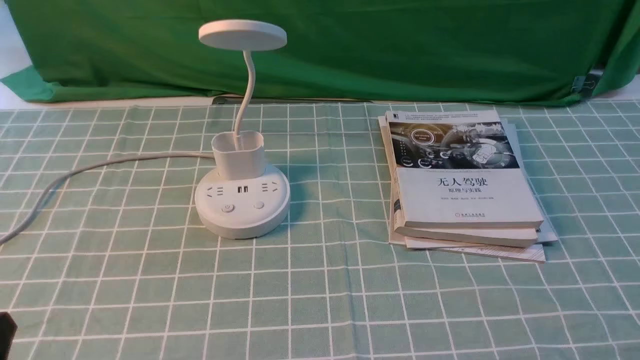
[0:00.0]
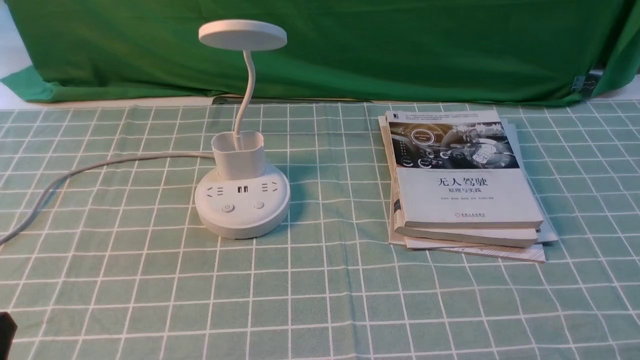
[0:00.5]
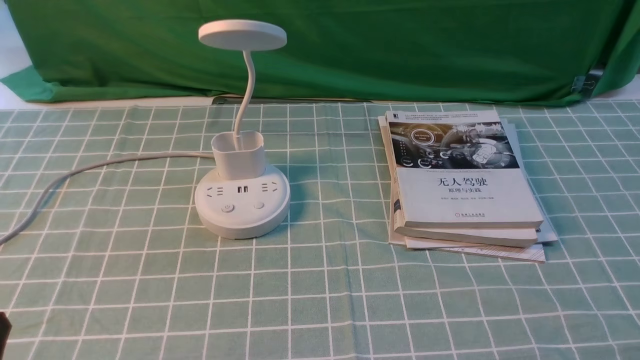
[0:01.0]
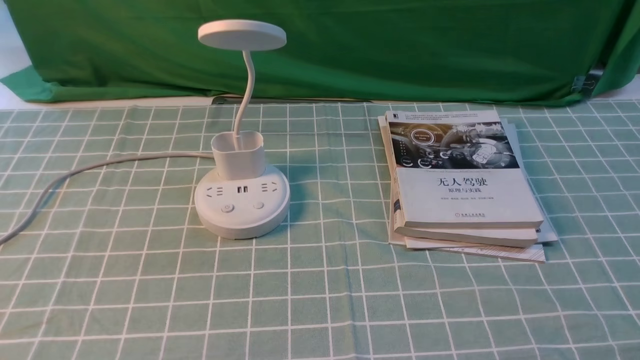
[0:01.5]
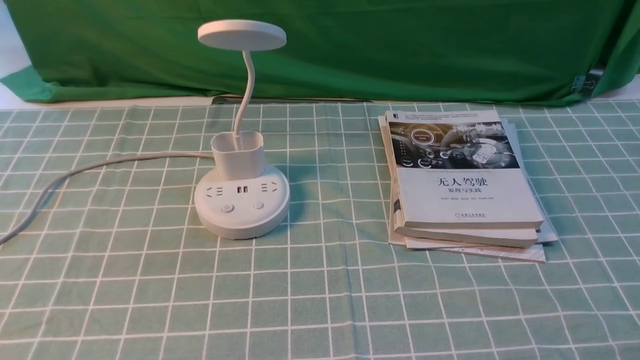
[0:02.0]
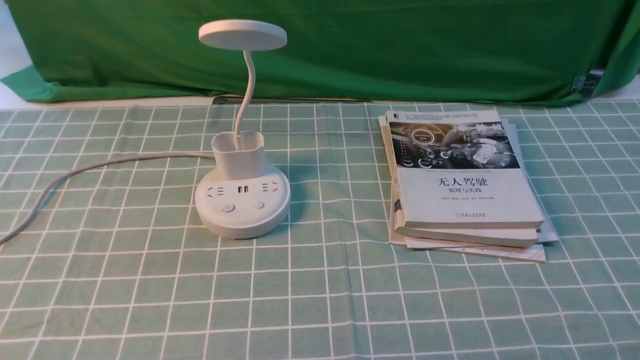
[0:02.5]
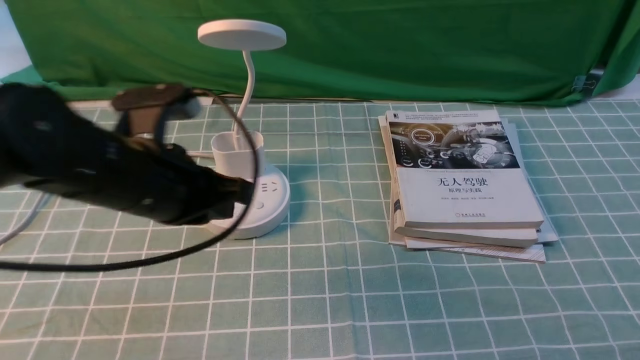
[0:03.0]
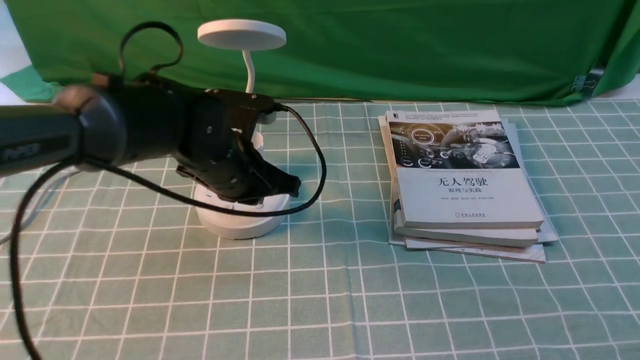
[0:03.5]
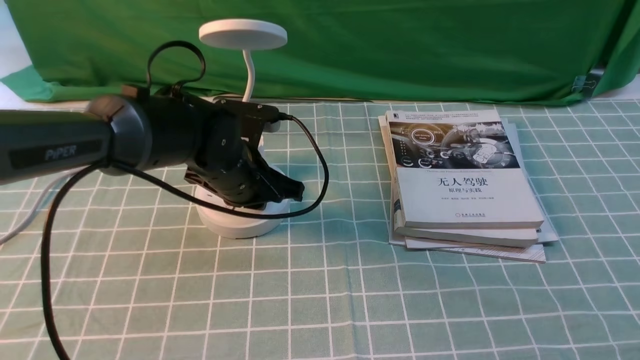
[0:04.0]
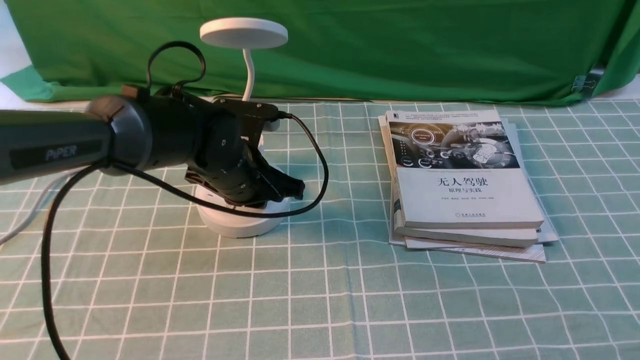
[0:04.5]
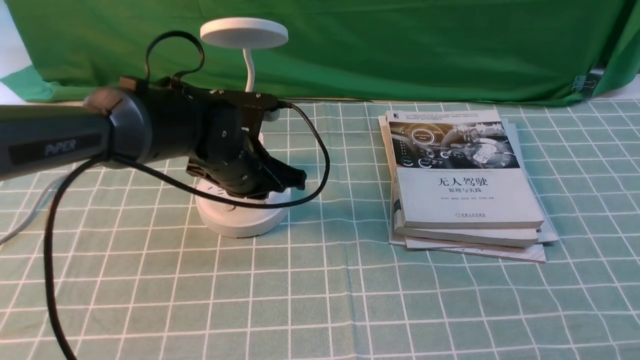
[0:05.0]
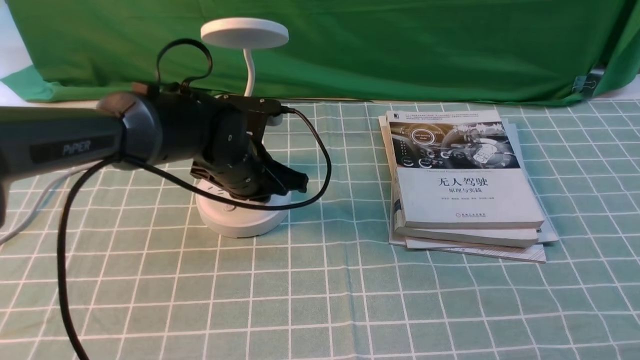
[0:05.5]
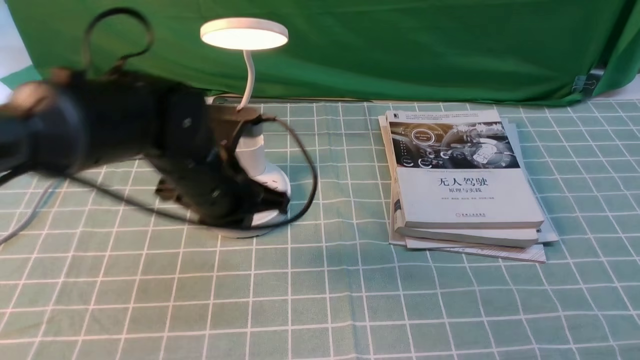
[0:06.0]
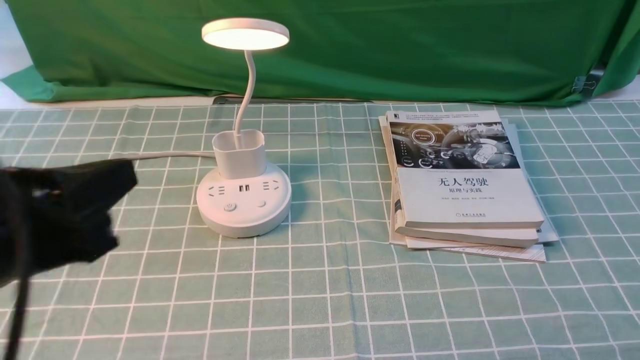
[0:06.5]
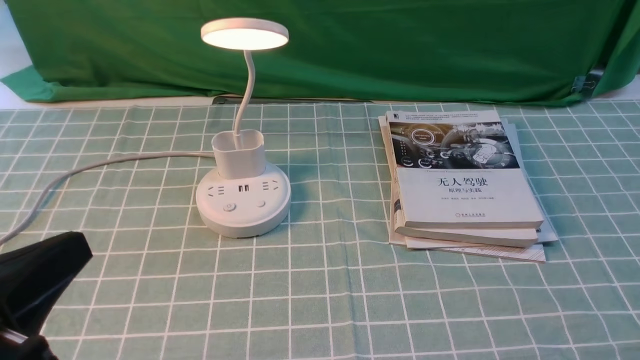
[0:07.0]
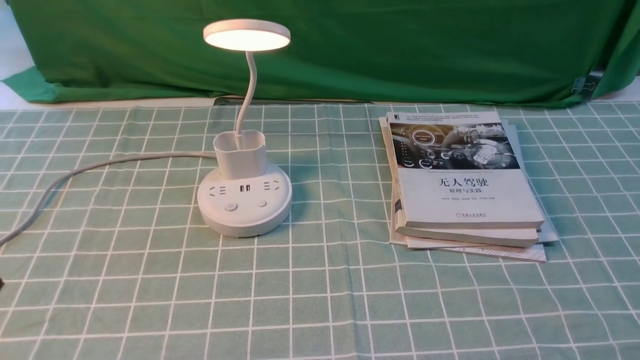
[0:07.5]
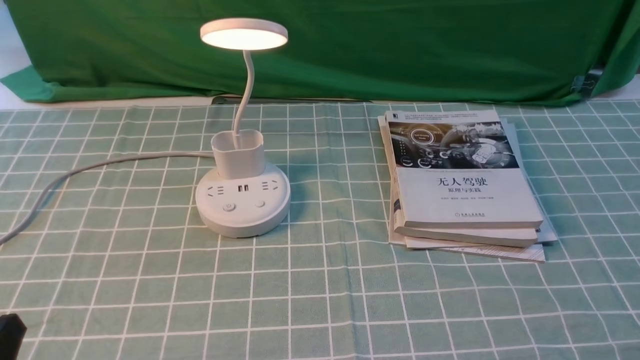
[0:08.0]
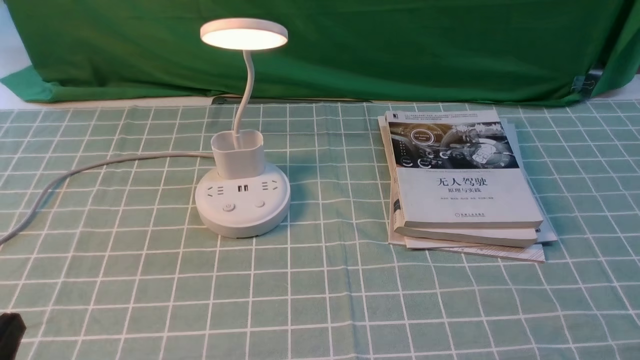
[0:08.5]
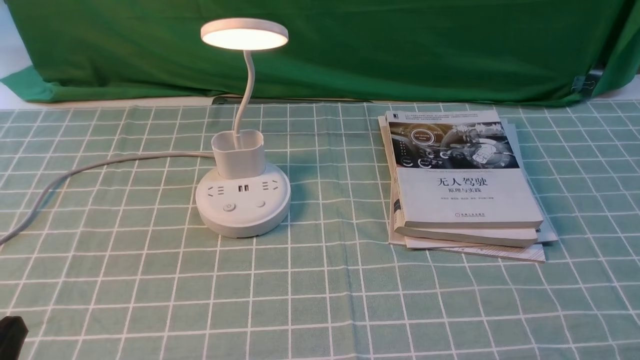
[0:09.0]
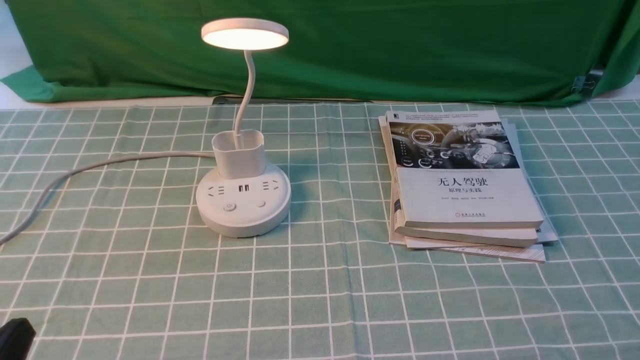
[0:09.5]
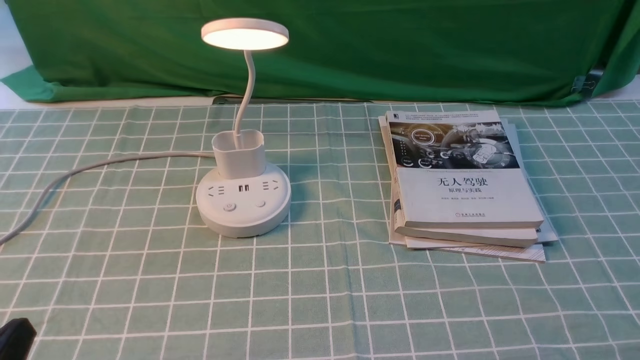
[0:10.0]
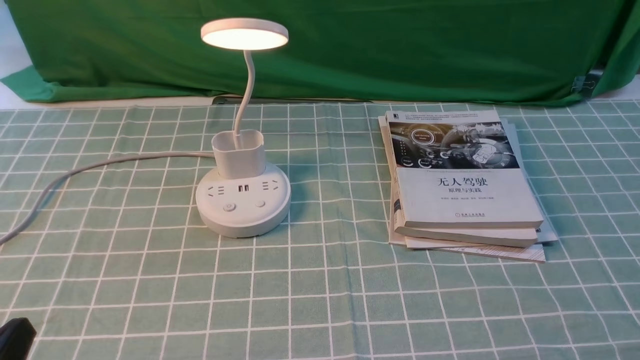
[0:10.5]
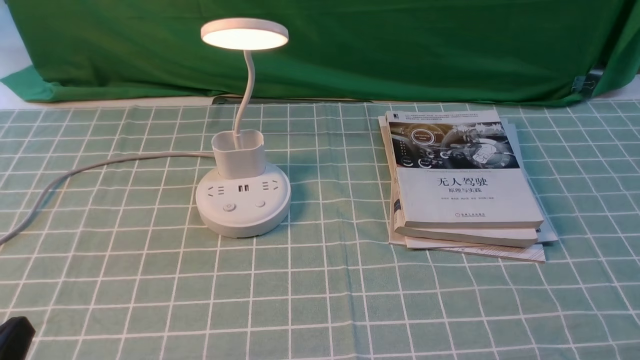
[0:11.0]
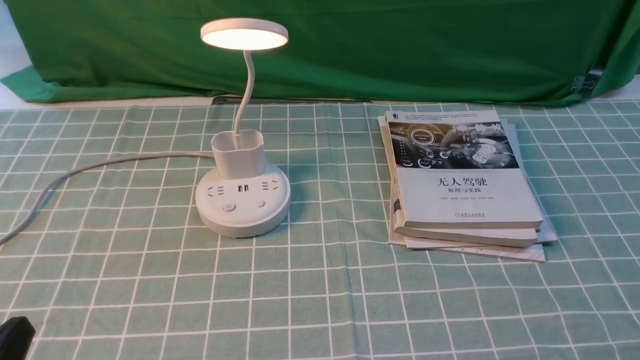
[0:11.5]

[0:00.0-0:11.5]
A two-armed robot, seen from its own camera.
Step, 0:00.0 to 0:05.5: use the left arm to press the button switch on the lamp holder.
0:02.0 to 0:04.0: The left gripper shifts about 40 cm forward, downward and to the right, and closes its fingers.
0:04.0 to 0:06.0: The left gripper shifts some 10 cm backward and upward.
0:06.0 to 0:07.5: The left gripper goes roughly 30 cm backward and to the left.
0:07.5 to 0:09.5: The left gripper heads downward, covering about 10 cm.
0:09.5 to 0:11.5: The two grippers keep their place.
